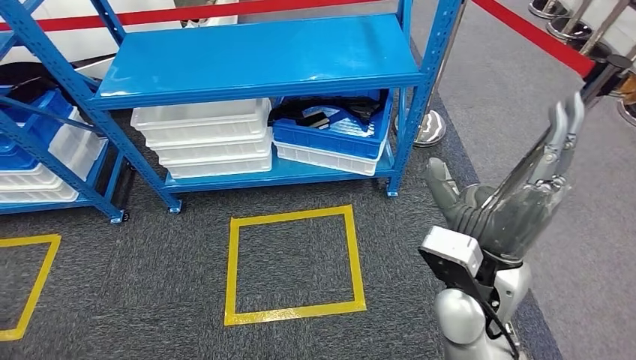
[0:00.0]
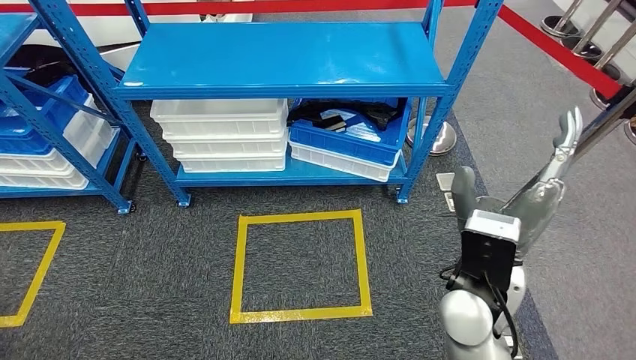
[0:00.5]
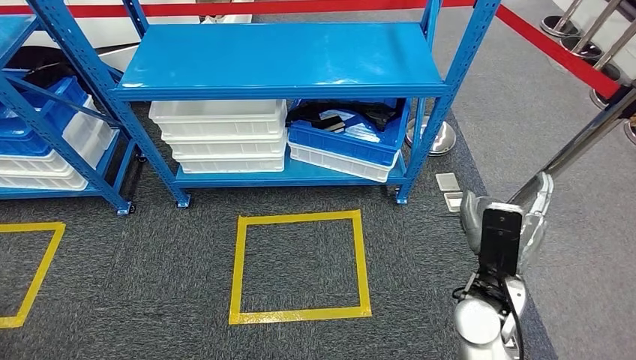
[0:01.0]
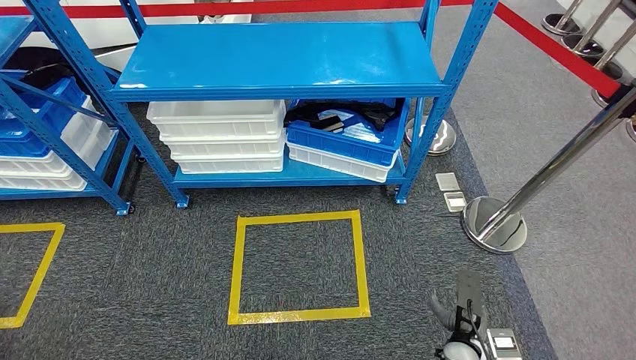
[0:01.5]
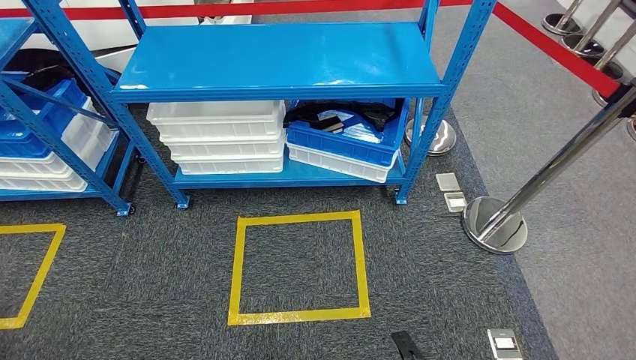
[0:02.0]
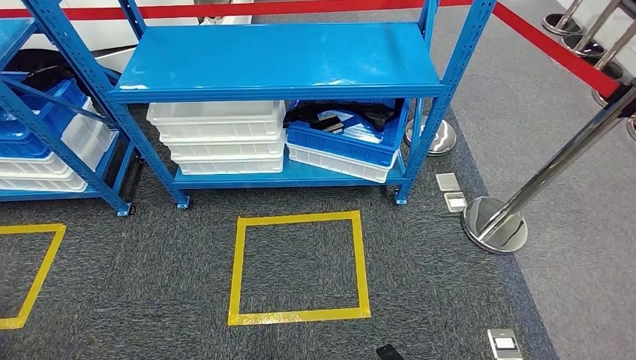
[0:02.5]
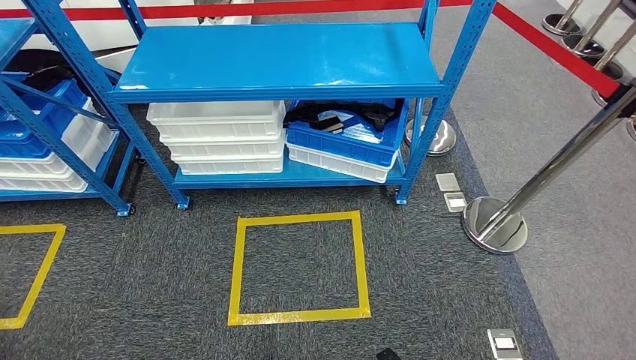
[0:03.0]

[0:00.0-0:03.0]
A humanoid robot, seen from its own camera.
Step, 0:00.0 to 0:03.0: Move to the initial position of the shelf.
0:01.5 to 0:03.0: The right hand travels to the left, downward and backward by some 15 cm.

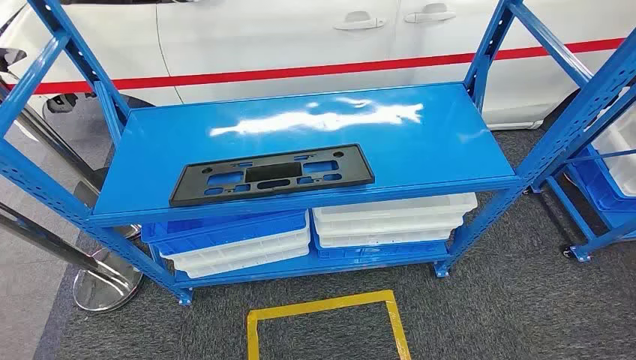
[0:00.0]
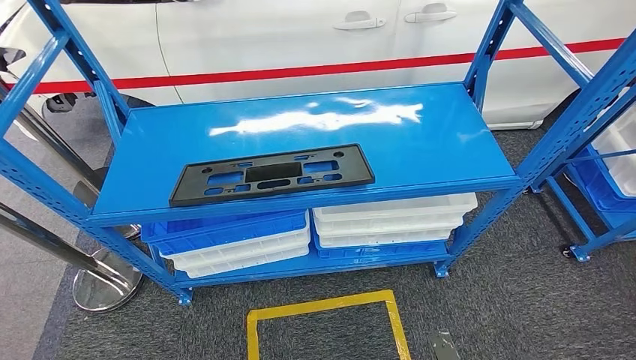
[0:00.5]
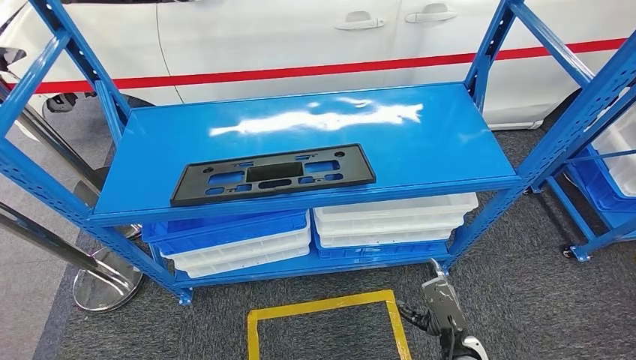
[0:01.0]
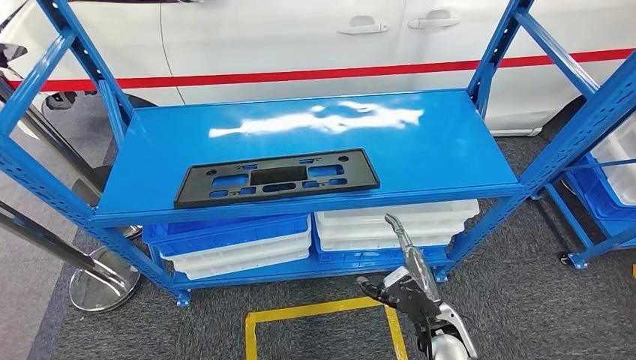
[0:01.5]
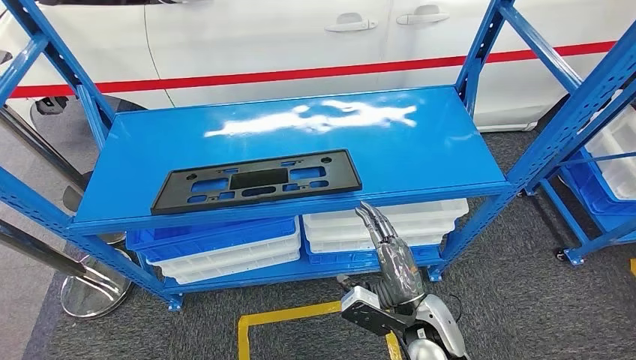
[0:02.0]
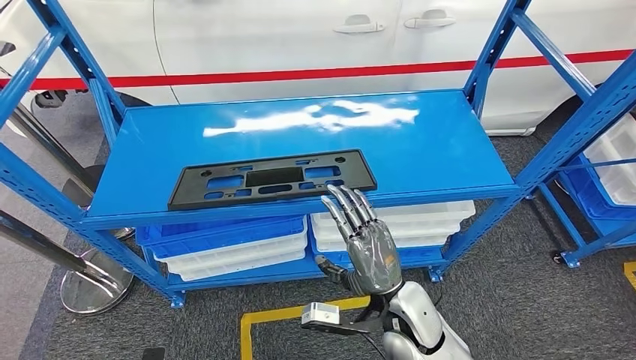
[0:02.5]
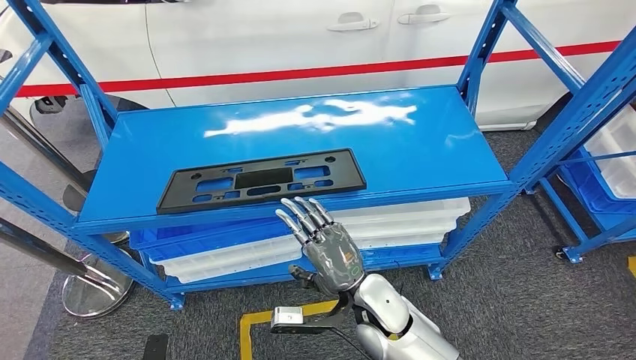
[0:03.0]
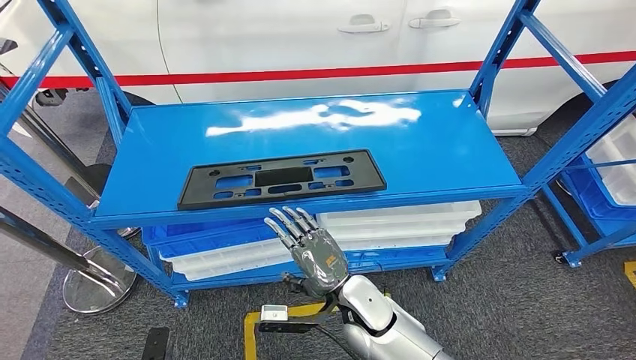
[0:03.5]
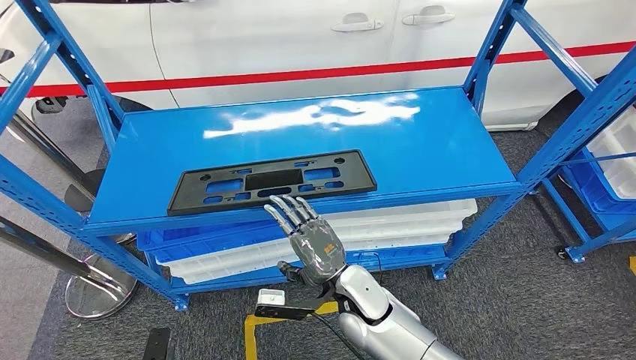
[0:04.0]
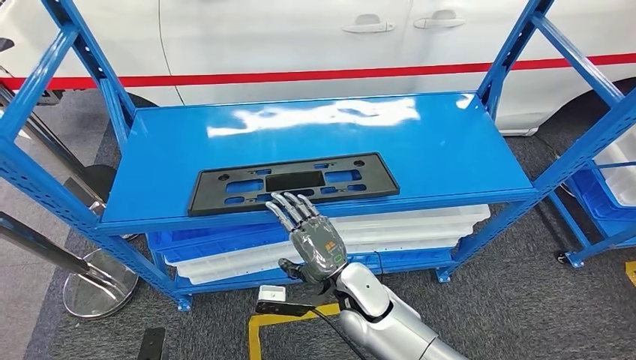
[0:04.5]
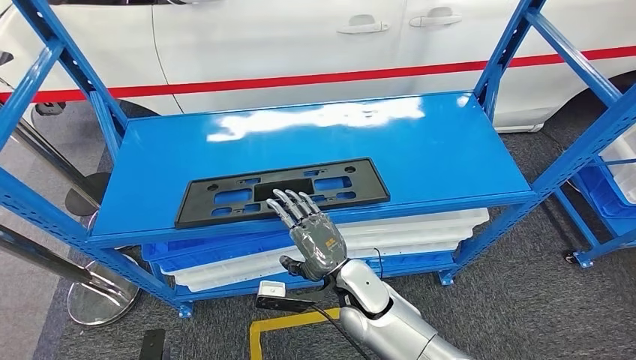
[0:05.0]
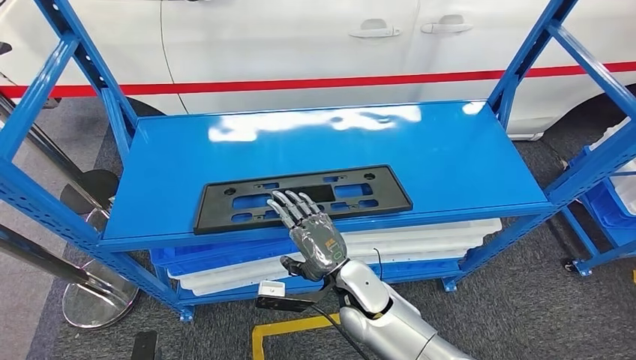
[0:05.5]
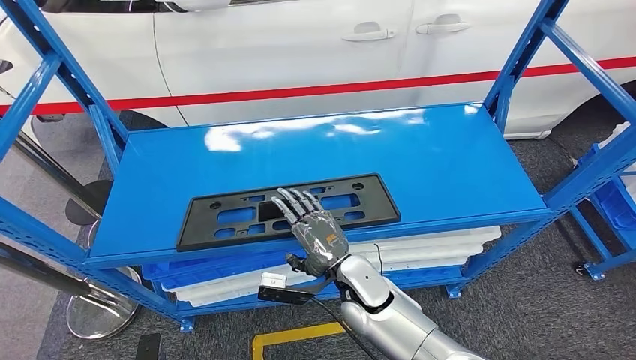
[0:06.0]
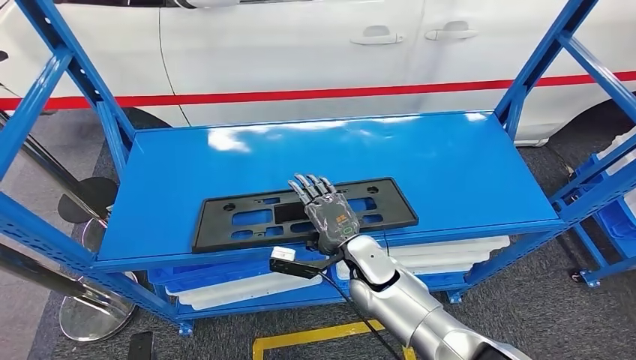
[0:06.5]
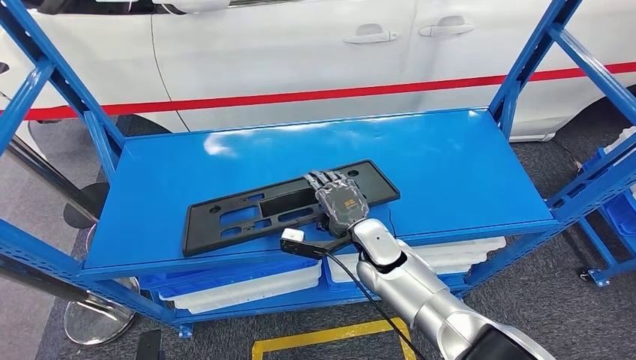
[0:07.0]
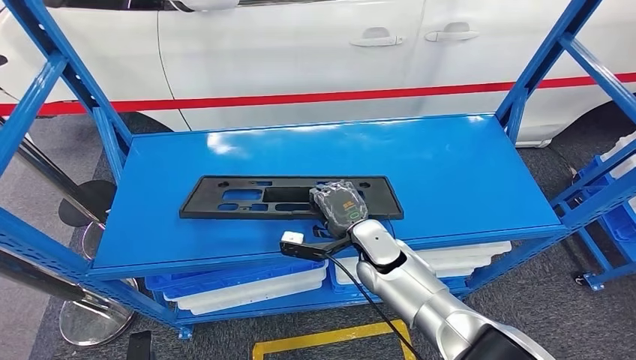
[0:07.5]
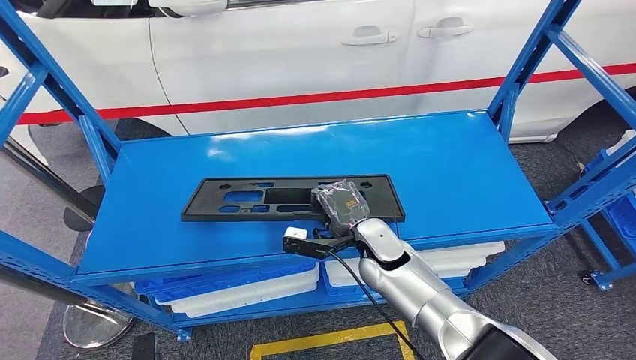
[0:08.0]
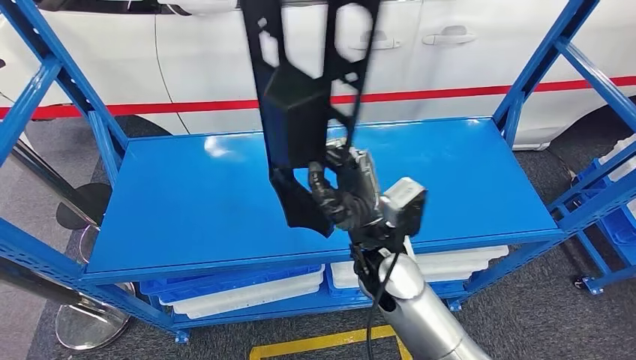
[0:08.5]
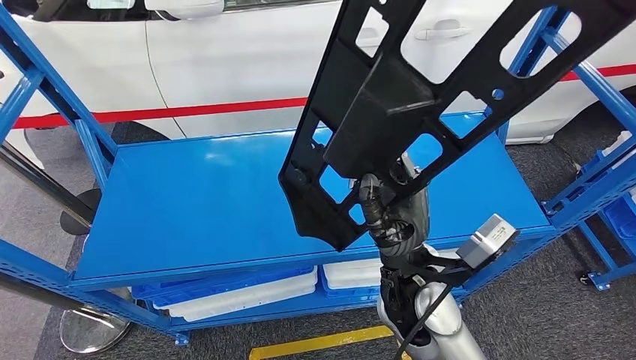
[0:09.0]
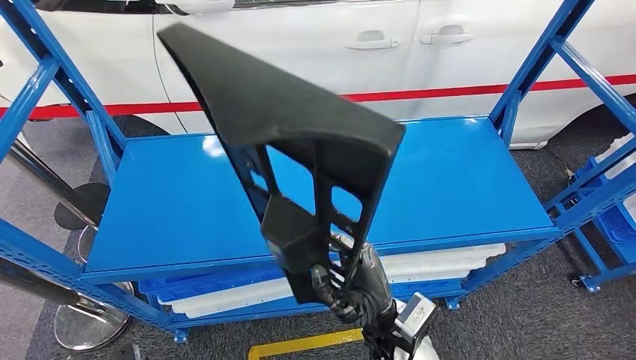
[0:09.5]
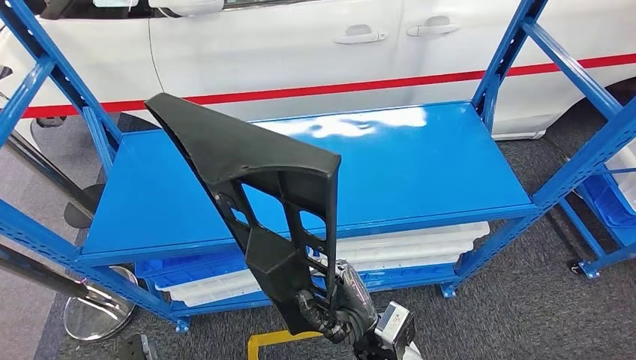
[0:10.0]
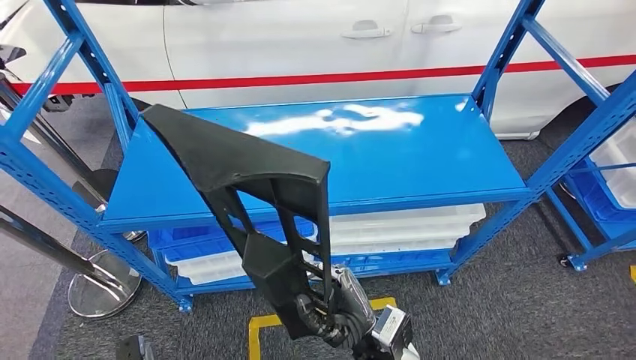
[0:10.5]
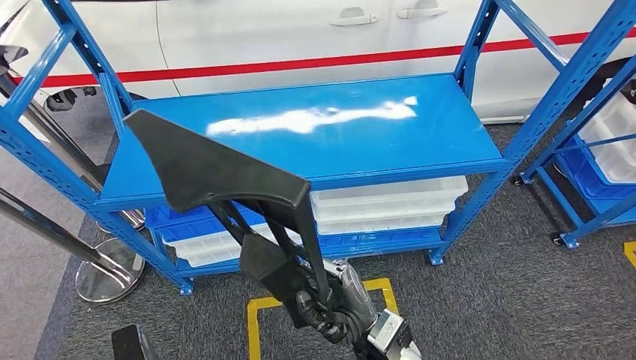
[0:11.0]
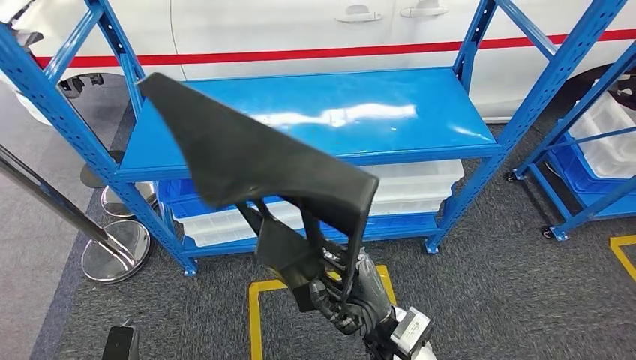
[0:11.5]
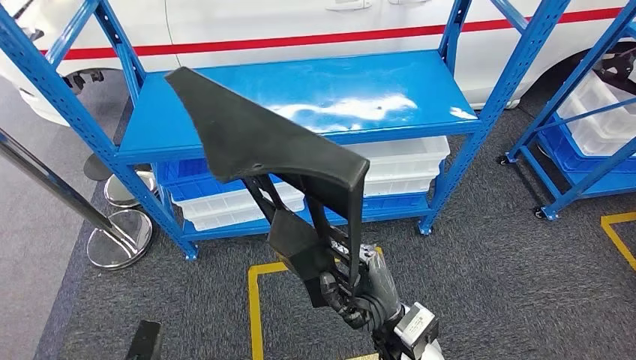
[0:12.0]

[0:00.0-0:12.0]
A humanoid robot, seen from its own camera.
Step, 0:00.0 to 0:08.5: Pick up the large material from the shelf.

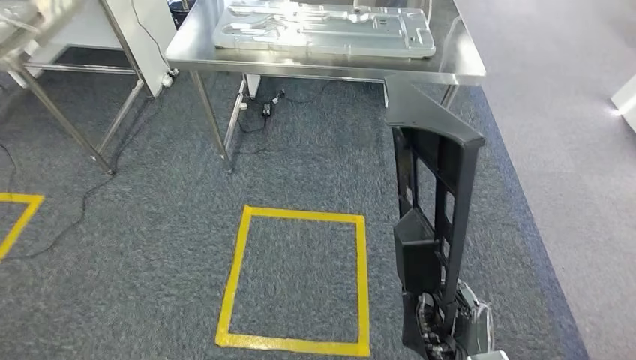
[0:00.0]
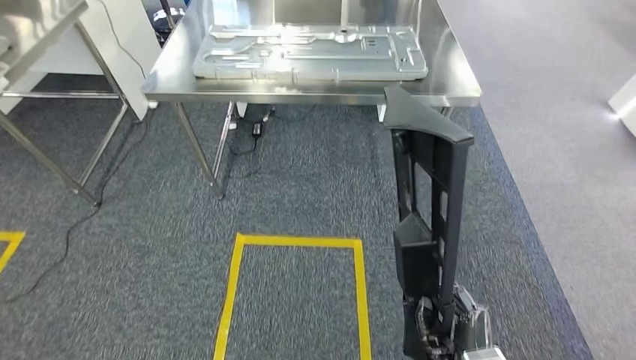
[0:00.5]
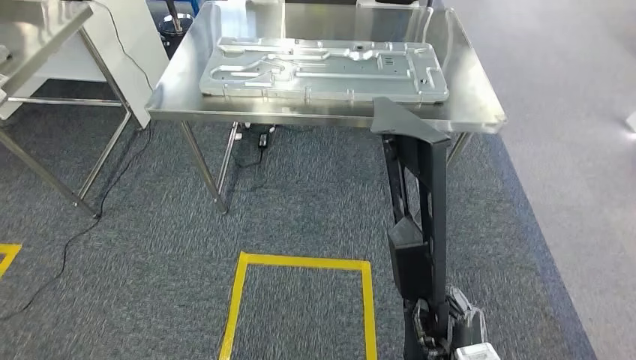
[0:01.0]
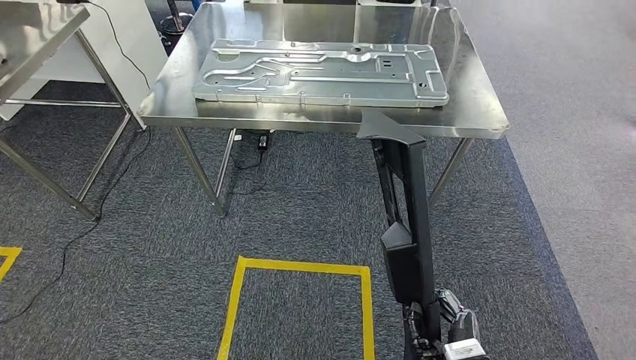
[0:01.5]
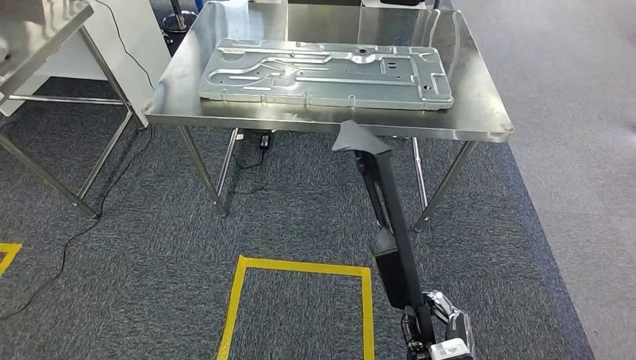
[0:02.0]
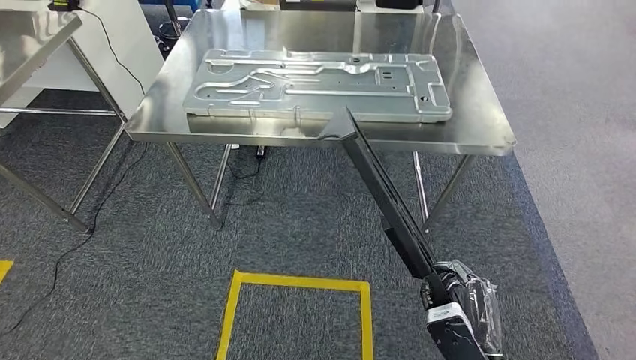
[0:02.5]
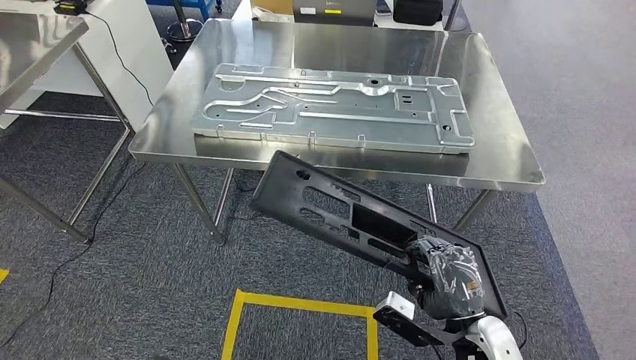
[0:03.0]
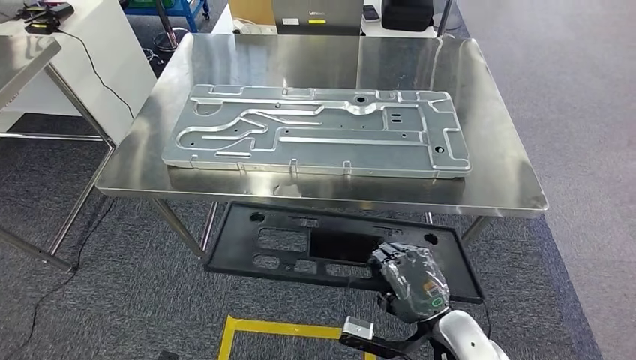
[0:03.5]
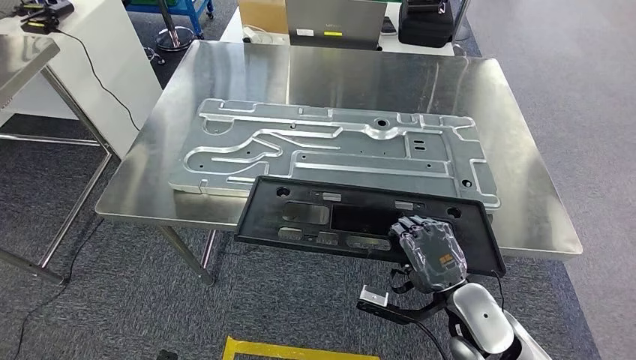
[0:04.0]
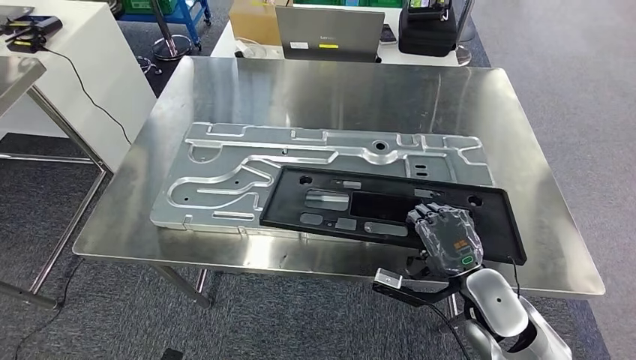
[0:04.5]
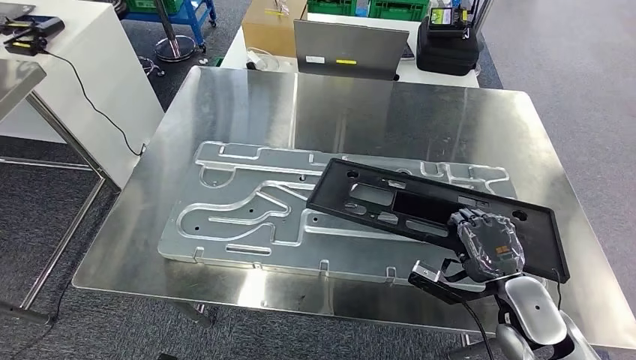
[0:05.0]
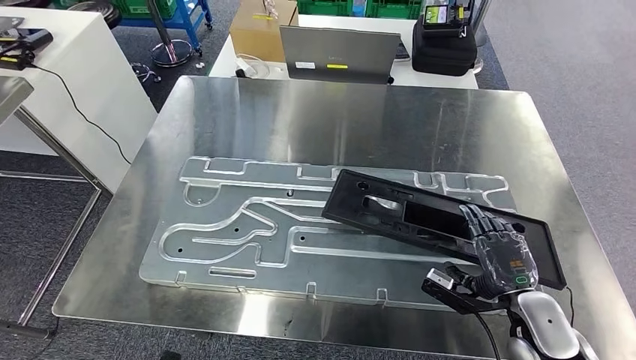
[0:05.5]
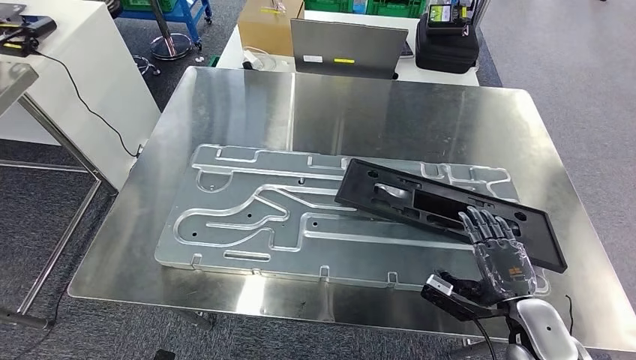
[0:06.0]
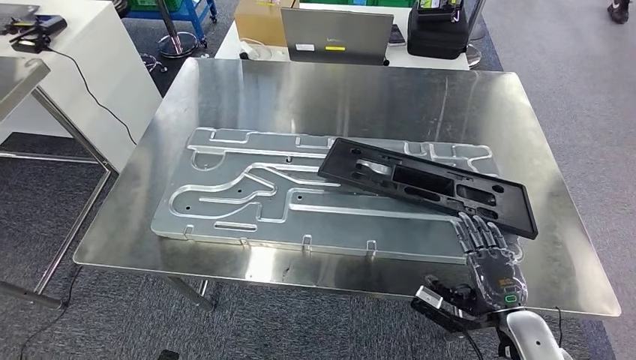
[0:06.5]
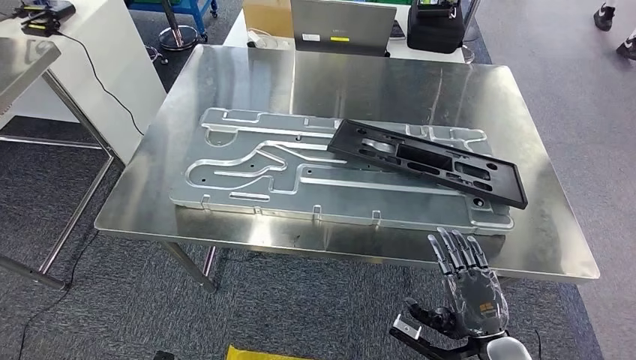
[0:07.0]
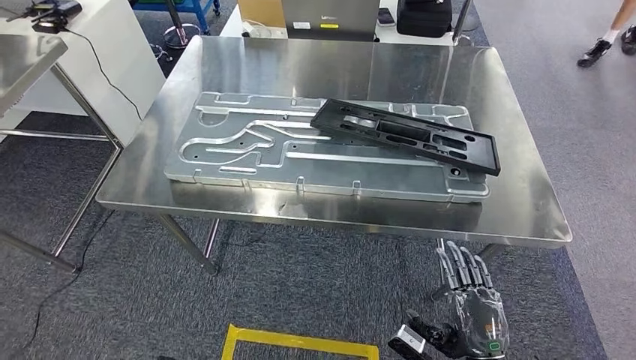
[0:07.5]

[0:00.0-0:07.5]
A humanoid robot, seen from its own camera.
Step, 0:00.0 to 0:04.5: Move the large material to the workbench.
Step, 0:05.0 to 0:07.5: Insert the large material into the corresponding slot on the workbench.
